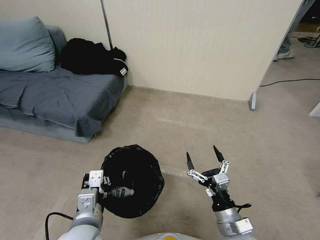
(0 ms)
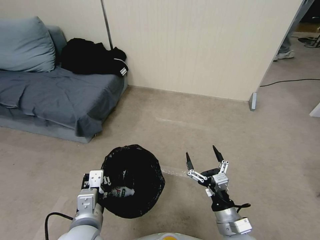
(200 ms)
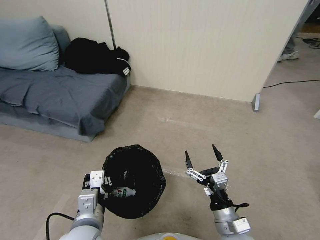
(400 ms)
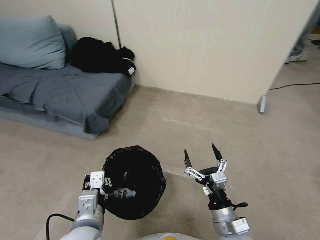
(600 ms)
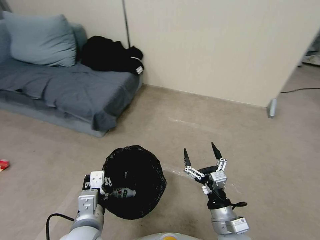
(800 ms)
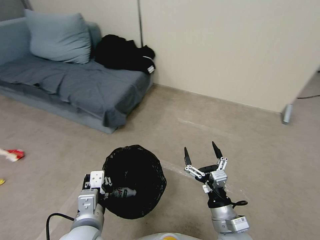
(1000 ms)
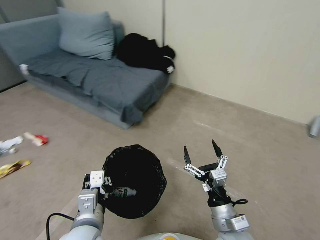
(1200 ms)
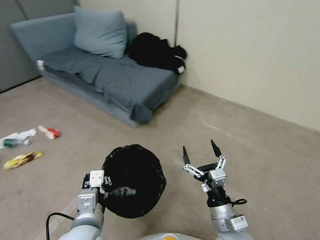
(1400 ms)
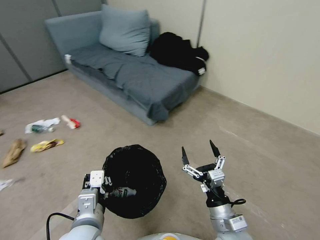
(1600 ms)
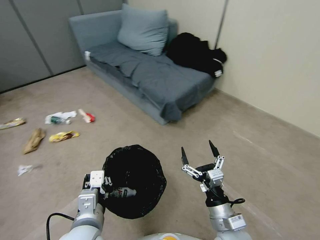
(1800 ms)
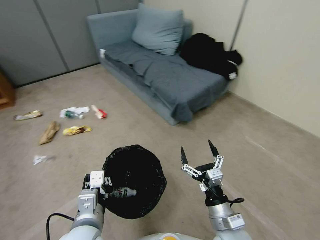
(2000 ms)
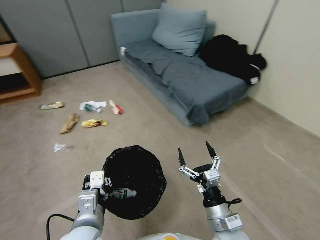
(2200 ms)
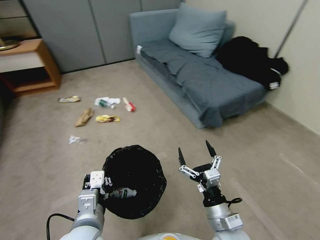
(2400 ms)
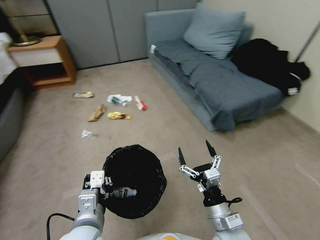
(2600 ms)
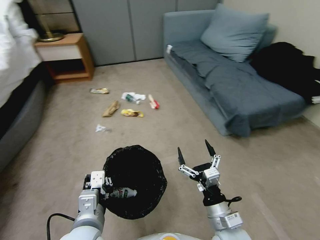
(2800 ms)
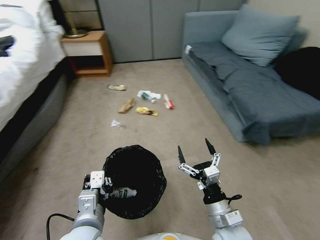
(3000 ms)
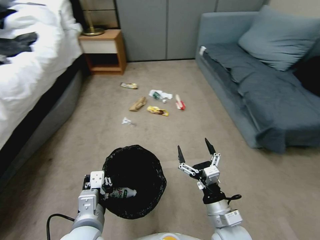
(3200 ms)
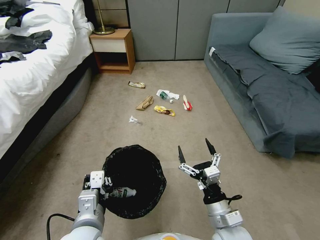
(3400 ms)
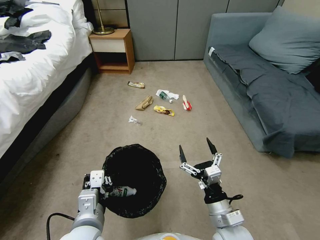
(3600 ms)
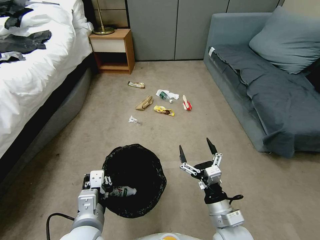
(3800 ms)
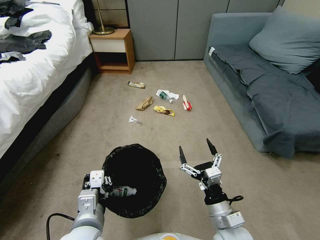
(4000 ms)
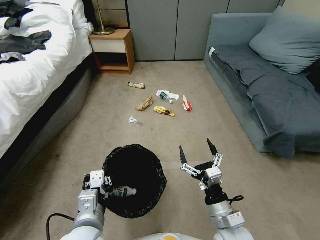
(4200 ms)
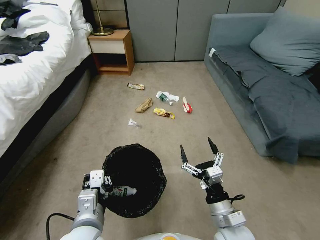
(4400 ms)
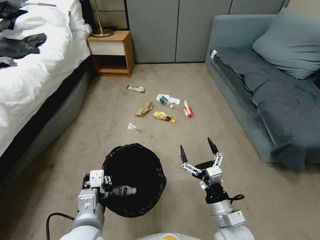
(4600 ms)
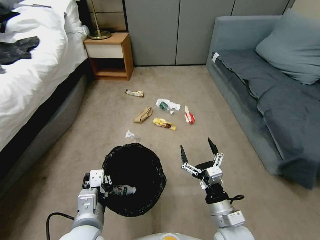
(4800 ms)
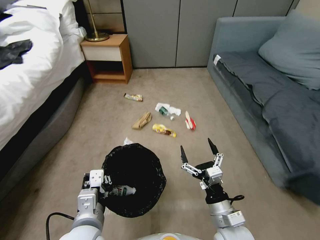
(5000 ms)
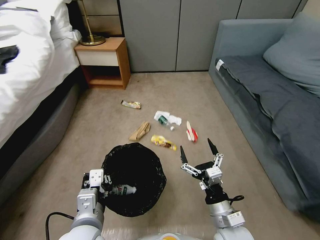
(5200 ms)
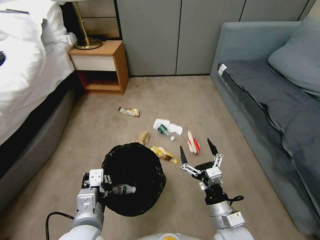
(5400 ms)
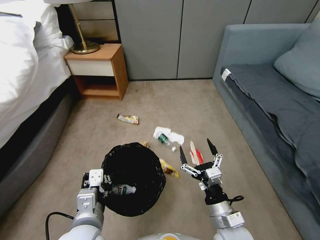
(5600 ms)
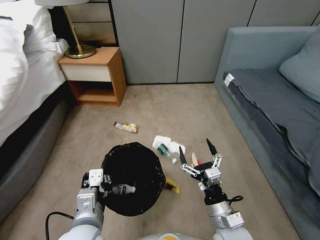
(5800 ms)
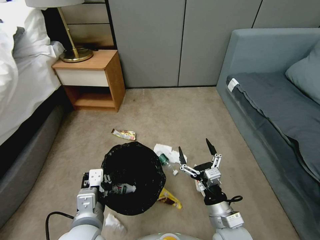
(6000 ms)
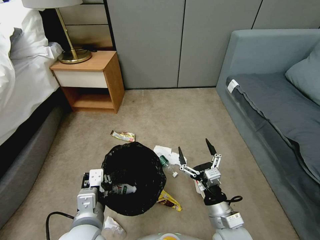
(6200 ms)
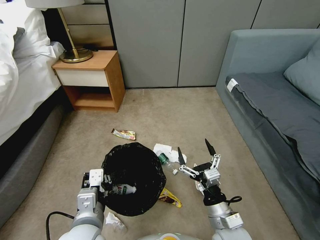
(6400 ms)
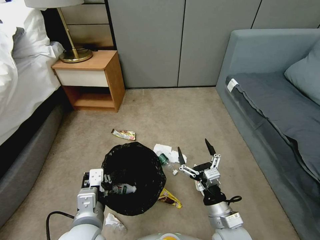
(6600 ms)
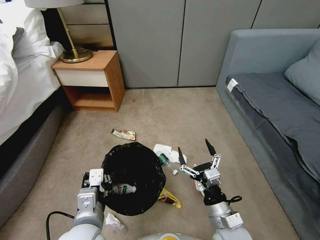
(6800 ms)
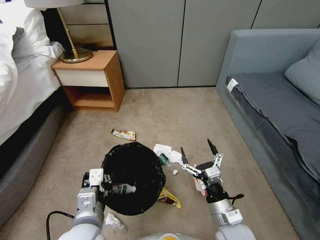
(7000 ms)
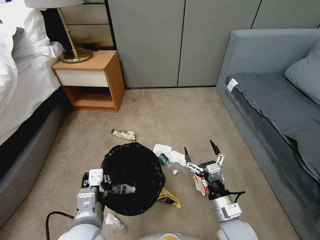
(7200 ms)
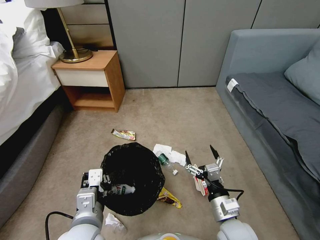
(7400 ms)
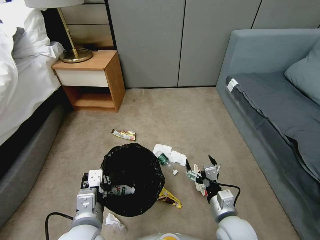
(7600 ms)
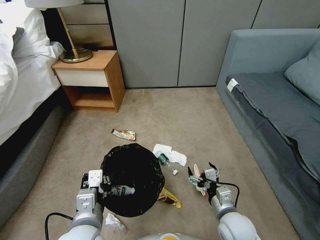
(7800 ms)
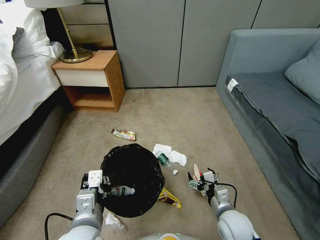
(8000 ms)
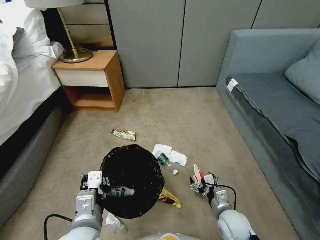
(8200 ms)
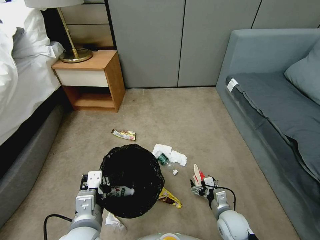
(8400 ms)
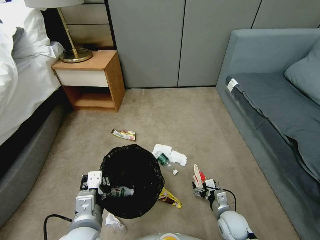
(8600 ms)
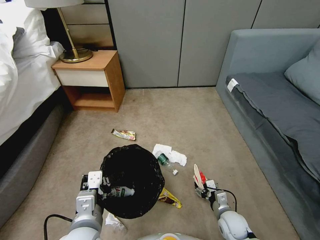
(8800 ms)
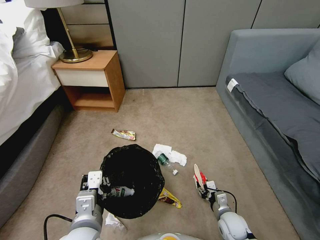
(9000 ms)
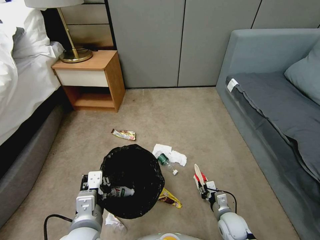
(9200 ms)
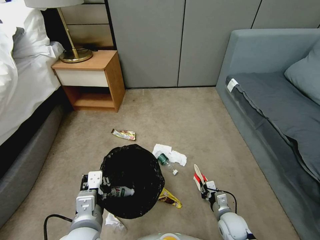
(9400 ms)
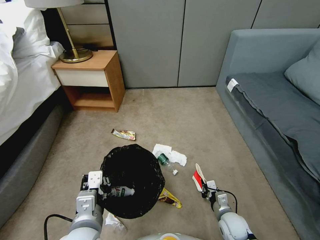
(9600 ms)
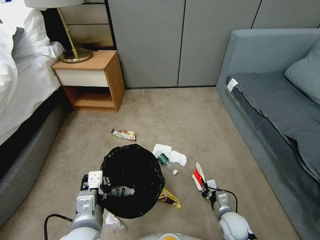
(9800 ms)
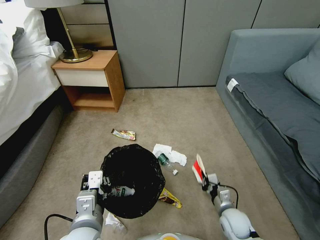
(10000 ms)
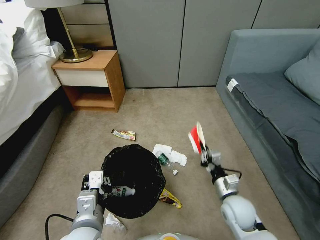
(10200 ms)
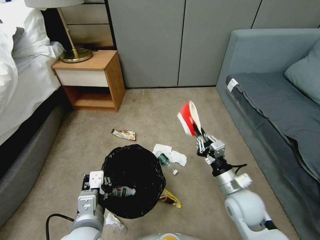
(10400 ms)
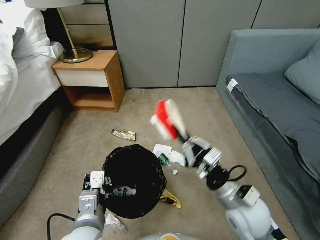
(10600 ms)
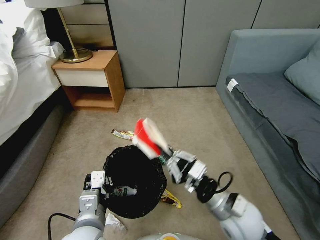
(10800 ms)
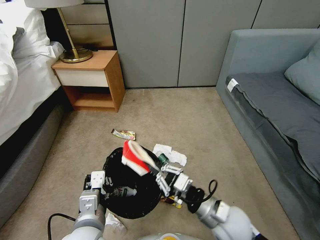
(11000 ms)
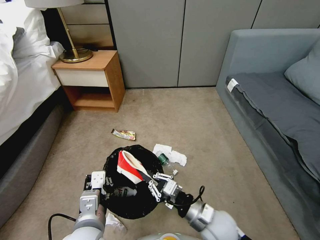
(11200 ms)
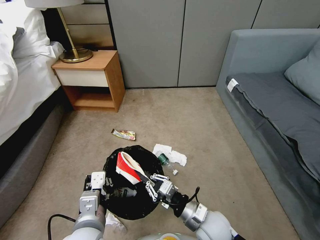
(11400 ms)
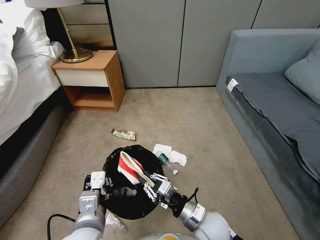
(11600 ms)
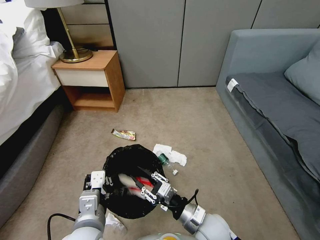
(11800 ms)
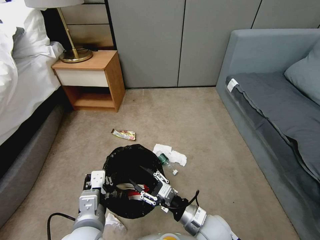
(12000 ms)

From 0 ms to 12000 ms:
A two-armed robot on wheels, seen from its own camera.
Task of the whole recording: Pick up the trash bin, then pick up the garbage from the floor and place it into the trash bin.
From 7600 ms to 9000 ms: The right gripper moves downward, about 15 cm, and closes up.
From 9000 ms to 10400 ms: The right gripper heads upward, covering about 20 cm, and closes its fingers.
From 10400 ms to 12000 ms: The right gripper shifts about 10 cm to the left and backward, and opens its fingers.

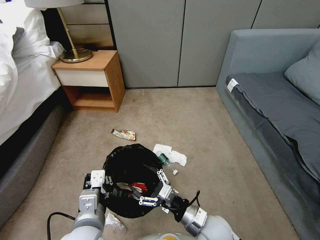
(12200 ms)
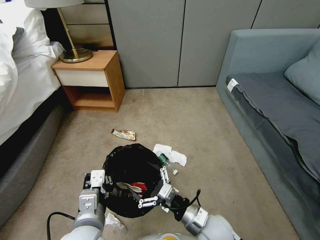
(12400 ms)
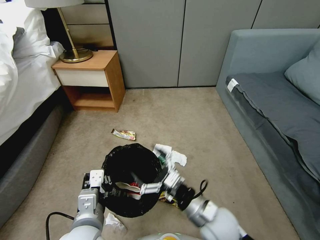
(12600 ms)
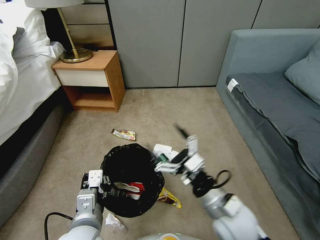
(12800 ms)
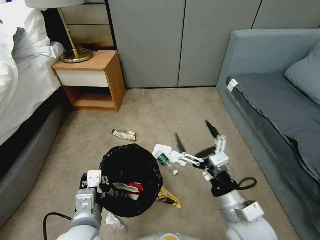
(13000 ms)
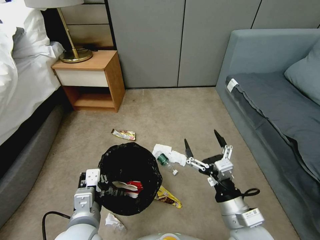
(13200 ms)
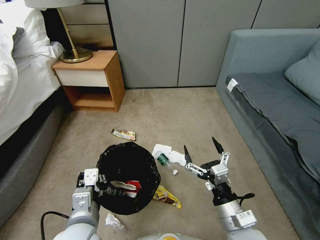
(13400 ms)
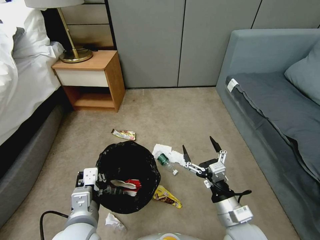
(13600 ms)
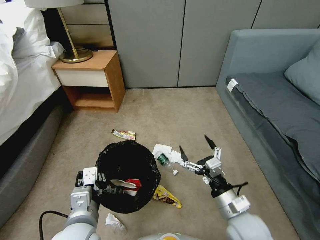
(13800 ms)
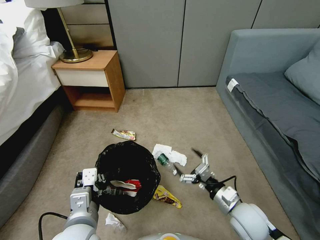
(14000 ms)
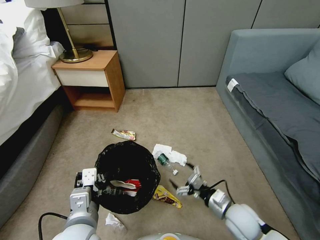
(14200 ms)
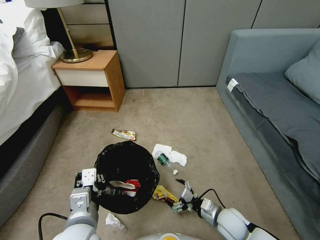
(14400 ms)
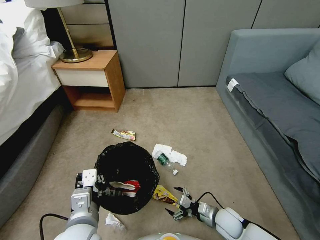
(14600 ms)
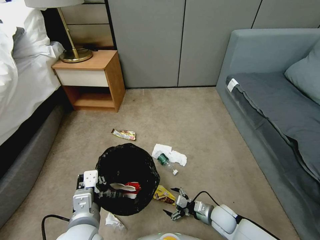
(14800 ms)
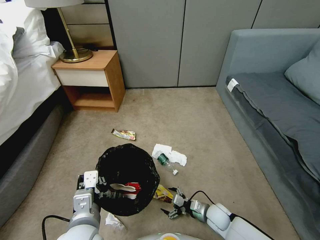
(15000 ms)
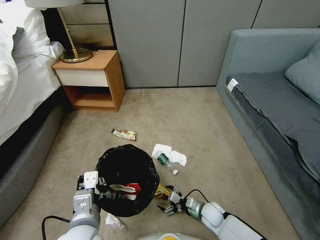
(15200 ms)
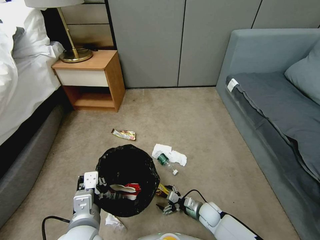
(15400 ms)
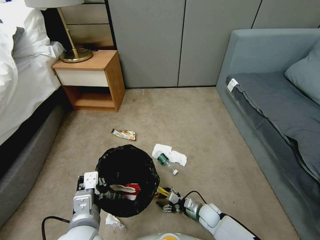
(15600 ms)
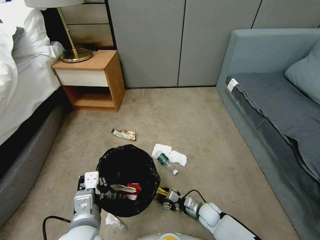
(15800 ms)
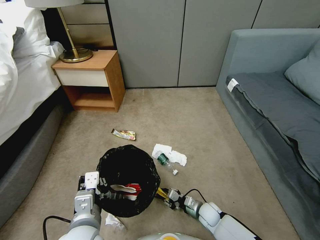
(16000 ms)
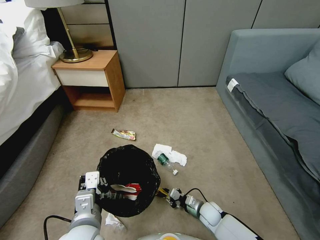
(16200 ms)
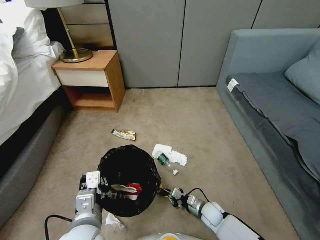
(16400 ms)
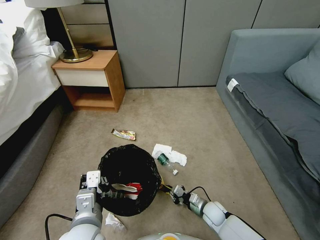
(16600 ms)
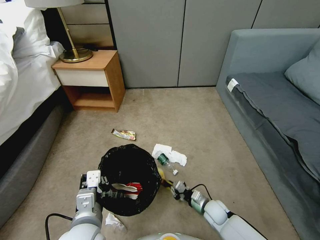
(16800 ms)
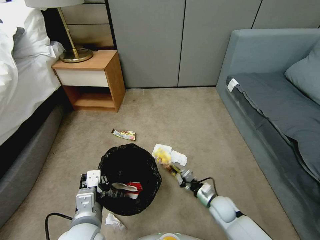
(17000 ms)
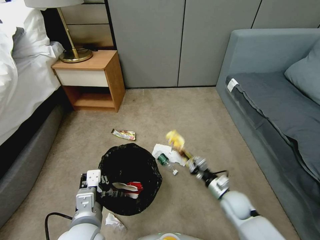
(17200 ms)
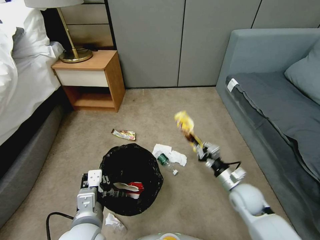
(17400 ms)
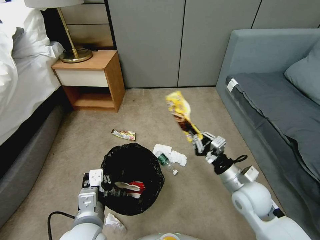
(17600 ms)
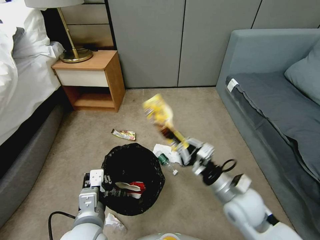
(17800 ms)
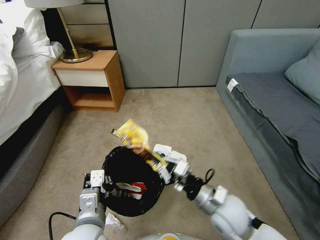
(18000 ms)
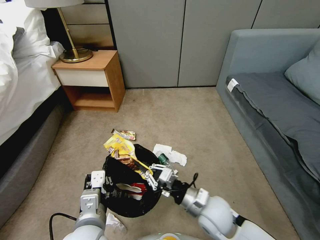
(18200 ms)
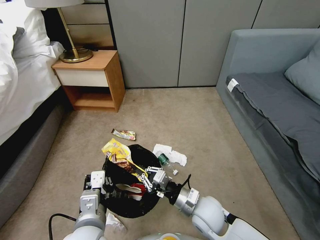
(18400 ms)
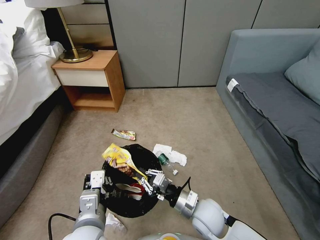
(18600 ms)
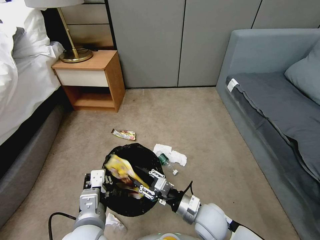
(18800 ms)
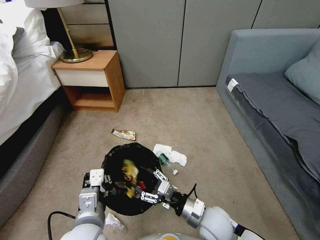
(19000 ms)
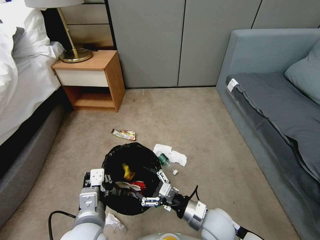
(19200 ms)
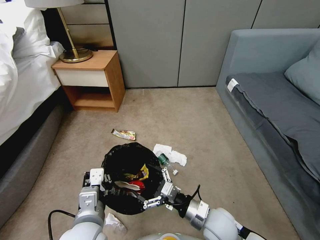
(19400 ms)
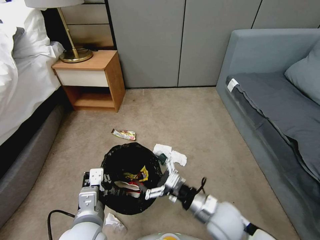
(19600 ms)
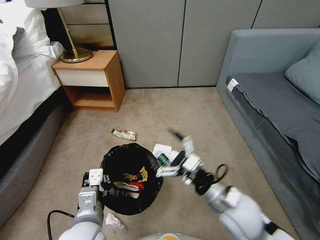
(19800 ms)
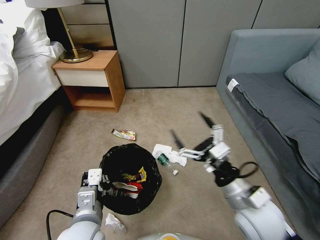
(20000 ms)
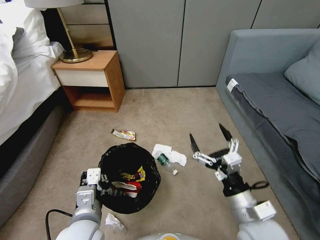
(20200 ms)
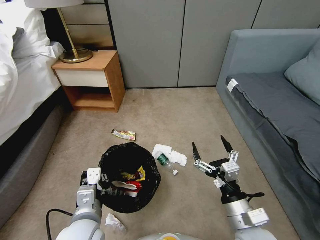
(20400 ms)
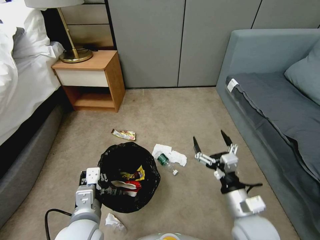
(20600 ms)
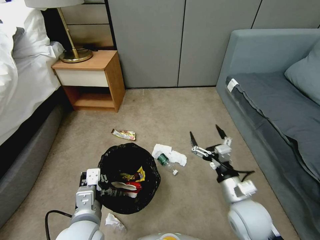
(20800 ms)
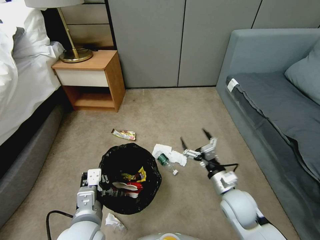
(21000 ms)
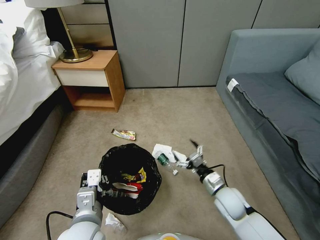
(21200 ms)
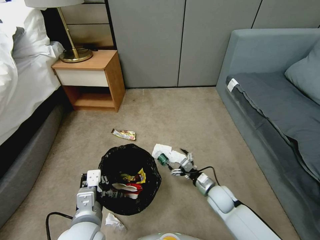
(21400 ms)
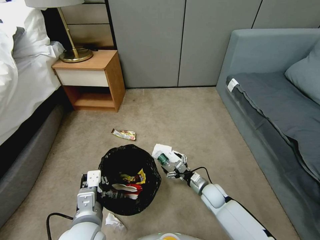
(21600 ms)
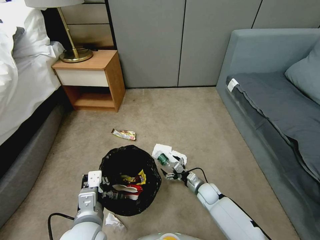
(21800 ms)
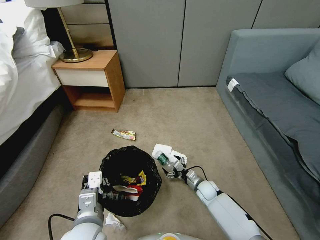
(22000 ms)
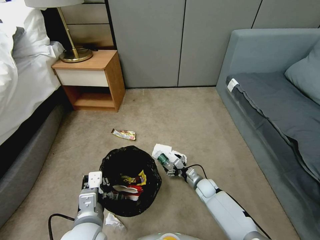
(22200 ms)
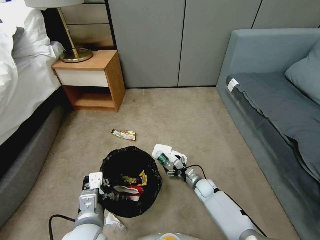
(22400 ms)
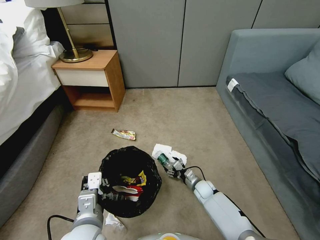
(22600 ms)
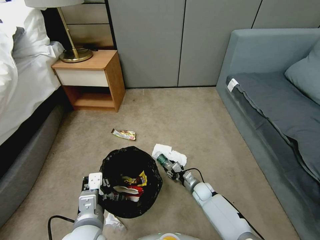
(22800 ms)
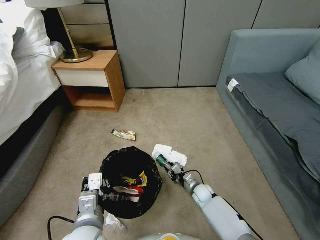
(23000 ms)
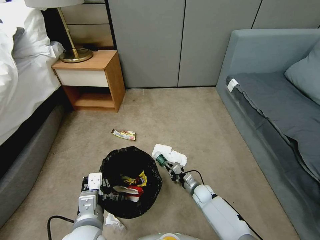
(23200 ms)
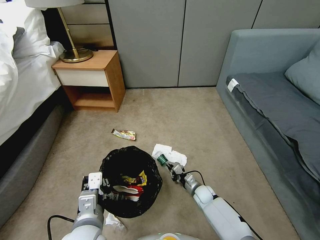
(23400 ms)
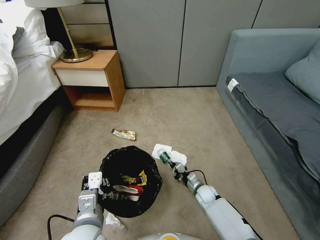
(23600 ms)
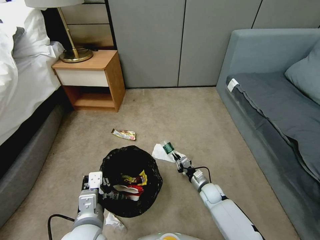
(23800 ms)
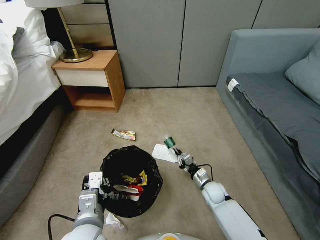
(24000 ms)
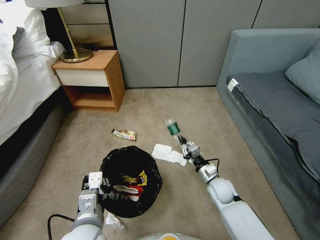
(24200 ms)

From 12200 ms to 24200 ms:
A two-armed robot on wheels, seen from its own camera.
Task of the whole recording: Pick up the trash bin, then pick up the garbage from the floor and place it into the trash bin.
From 12200 ms to 13800 ms: The right gripper shifts approximately 10 cm to the right and upward.
From 13800 ms to 15200 ms: The right gripper shifts approximately 25 cm downward.
From 15200 ms to 16600 ms: The right gripper closes up.
From 16600 ms to 18200 ms: The right gripper goes roughly 25 cm upward.
From 18200 ms to 19800 ms: The right gripper travels upward by roughly 5 cm, and opens its fingers.
From 19800 ms to 21200 ms: The right gripper goes some 15 cm downward and forward.
From 21200 ms to 22600 ms: The right gripper is displaced downward and forward by about 20 cm.
From 22600 ms to 24200 ms: The right gripper is displaced upward by some 10 cm, and closes its fingers.
